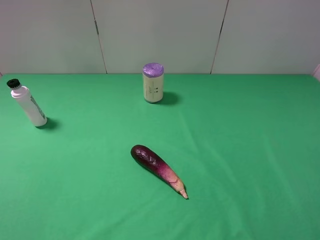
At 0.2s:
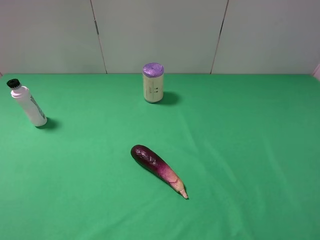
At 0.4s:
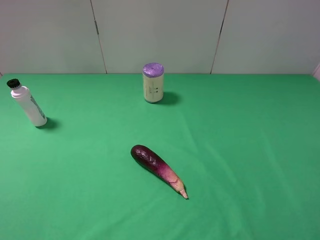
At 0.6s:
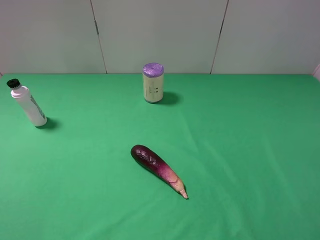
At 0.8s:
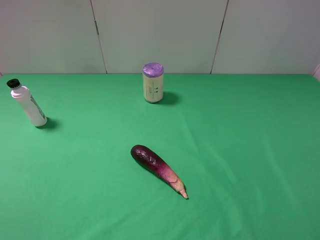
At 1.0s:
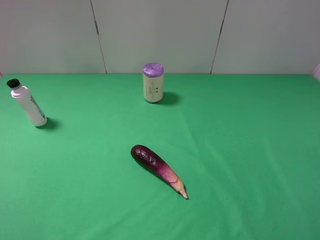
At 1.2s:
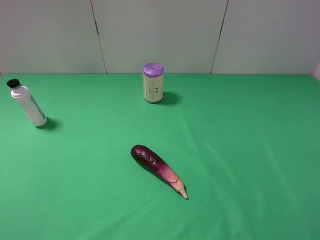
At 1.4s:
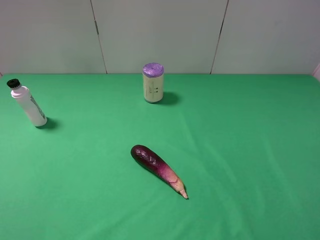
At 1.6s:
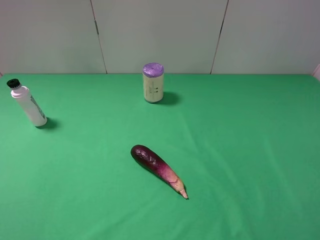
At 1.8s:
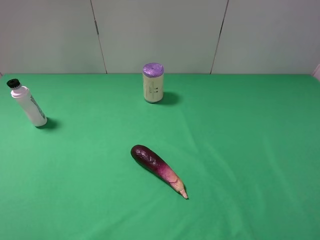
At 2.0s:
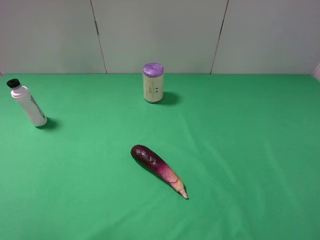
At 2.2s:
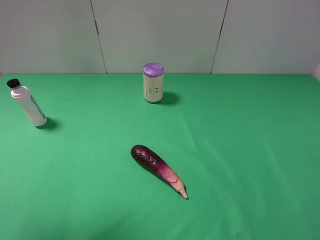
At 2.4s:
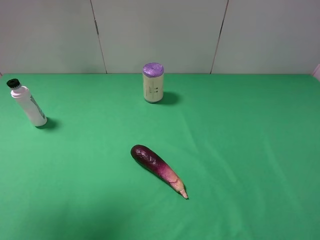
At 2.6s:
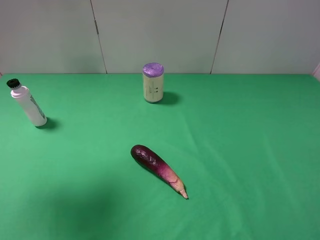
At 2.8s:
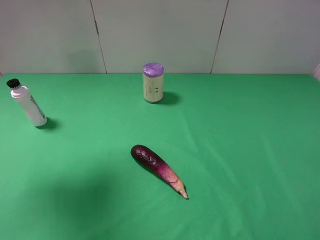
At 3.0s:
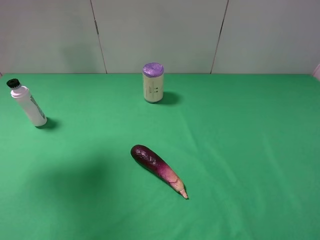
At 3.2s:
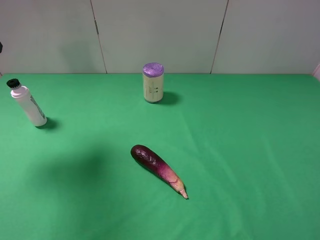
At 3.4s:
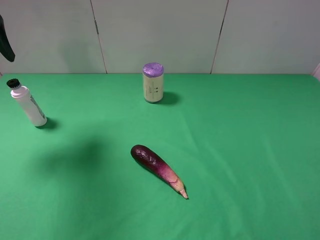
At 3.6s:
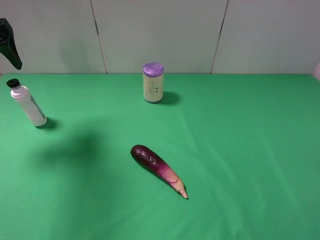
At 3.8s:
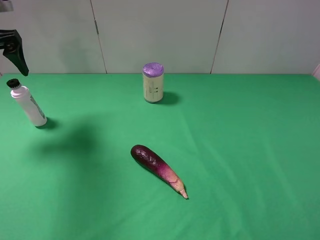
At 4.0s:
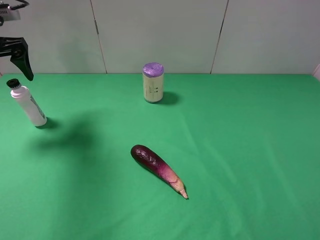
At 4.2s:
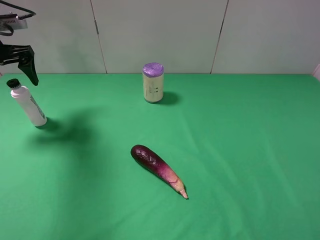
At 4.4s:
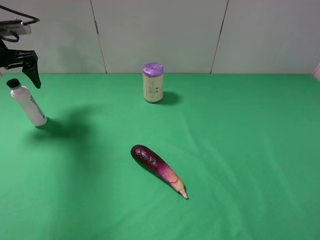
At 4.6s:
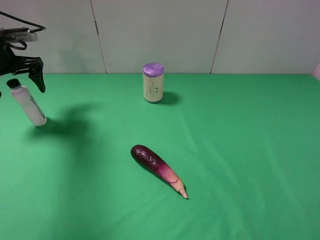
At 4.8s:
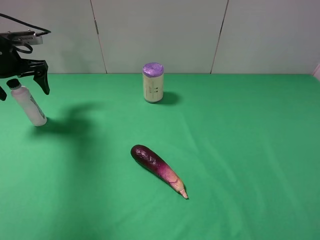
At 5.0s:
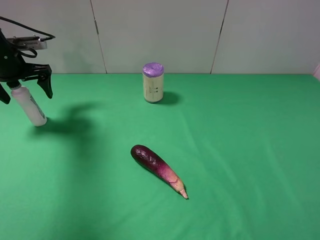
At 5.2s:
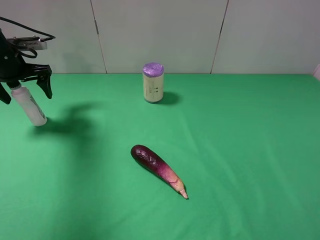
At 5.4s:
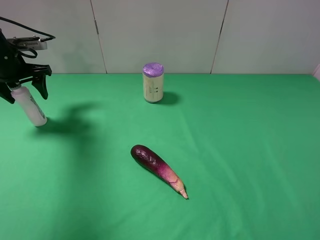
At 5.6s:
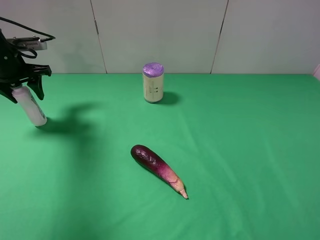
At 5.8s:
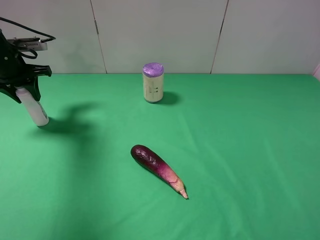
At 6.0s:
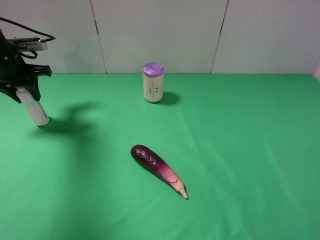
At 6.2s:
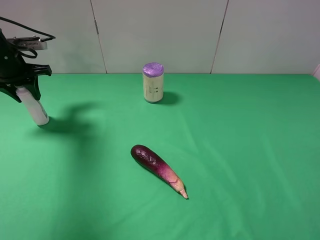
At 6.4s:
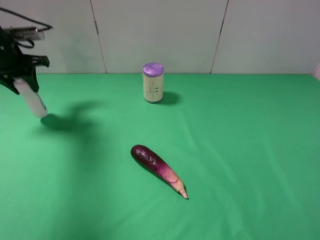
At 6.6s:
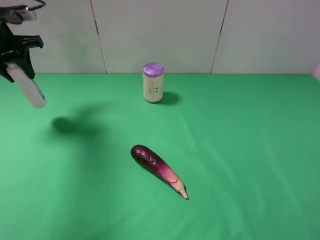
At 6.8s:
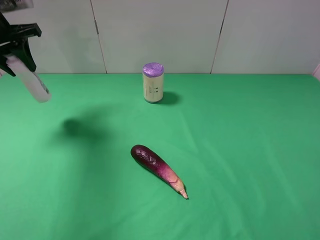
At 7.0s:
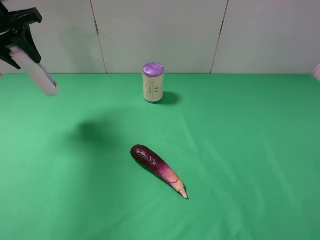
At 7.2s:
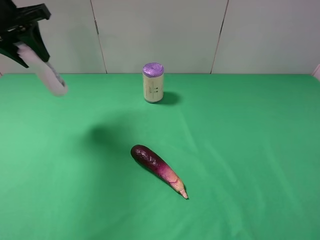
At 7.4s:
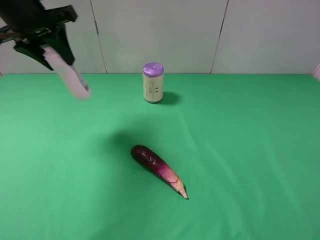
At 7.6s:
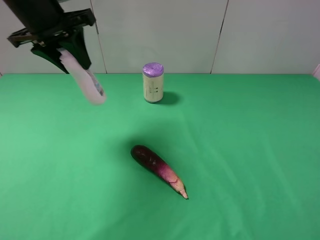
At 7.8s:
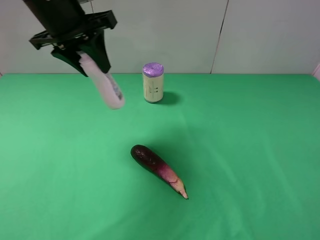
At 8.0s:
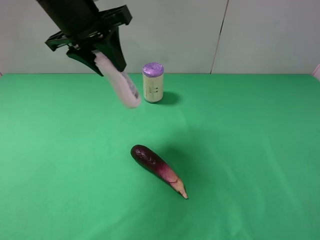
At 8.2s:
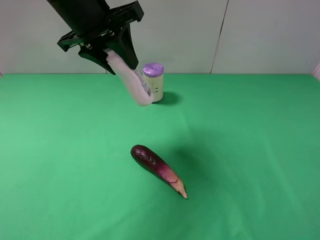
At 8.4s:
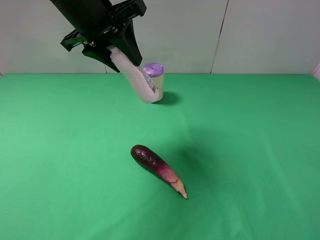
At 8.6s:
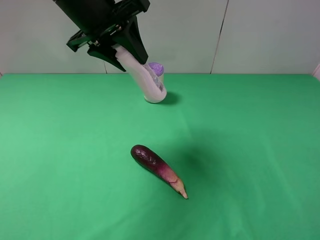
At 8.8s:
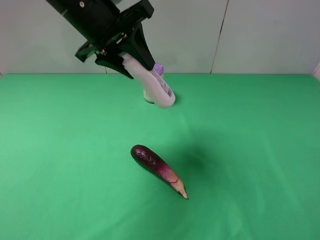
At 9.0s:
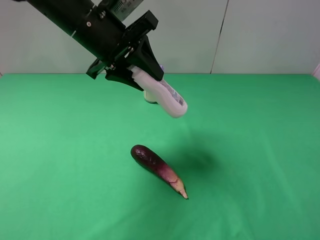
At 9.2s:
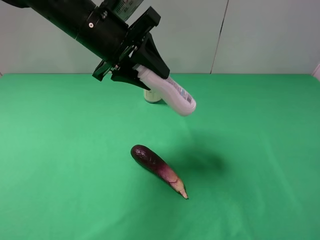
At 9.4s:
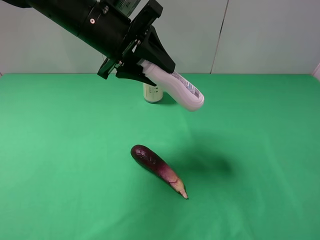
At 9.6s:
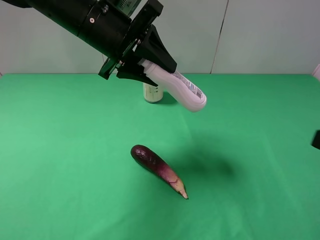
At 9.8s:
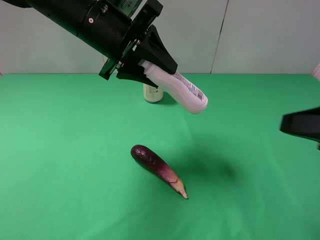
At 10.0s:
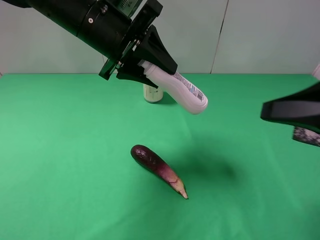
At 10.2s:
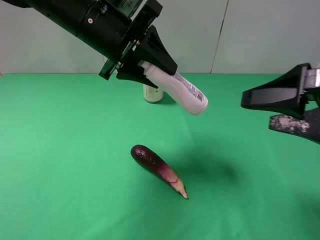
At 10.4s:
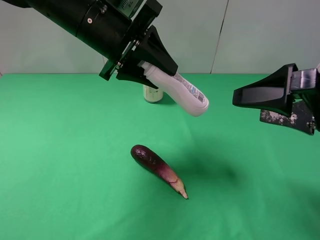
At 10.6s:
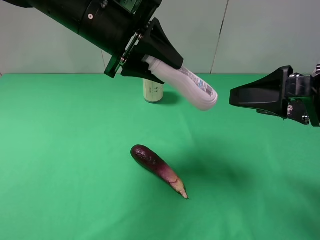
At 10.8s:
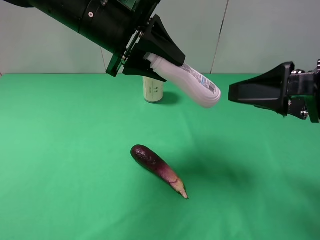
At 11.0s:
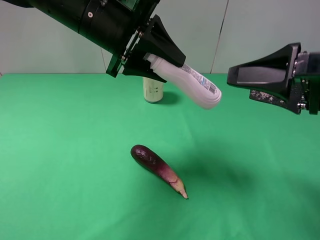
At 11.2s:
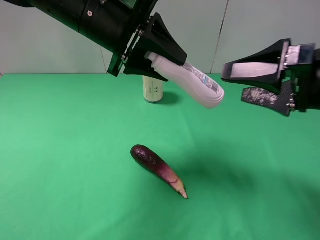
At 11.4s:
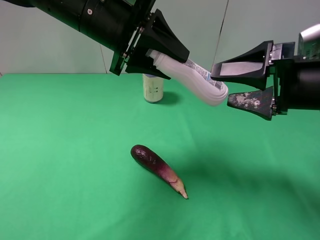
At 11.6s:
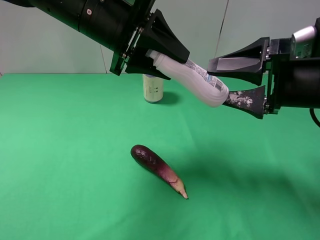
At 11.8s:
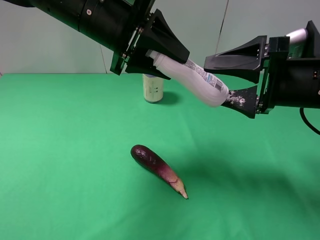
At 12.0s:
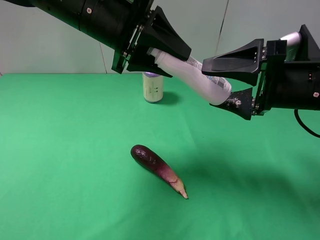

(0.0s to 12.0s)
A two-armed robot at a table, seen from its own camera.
Task of the whole recording: use the left gripper to pick up the item and transfer it from the left gripper to the right gripper.
1.6s - 3.0s: The left gripper heads forward, covering some 25 cm.
3.0s - 4.4s: The left gripper is displaced downward and forward by approximately 15 cm.
4.4s - 6.0s: The left gripper closes its fingers.
6.0s - 7.6s: The left gripper shifts approximately 20 cm to the right and upward.
7.6s - 9.0s: The left gripper goes roughly 10 cm to the right.
9.0s - 10.4s: The right gripper shifts approximately 15 cm forward and to the left.
10.4s - 12.0s: The right gripper is displaced forward by some 5 cm.

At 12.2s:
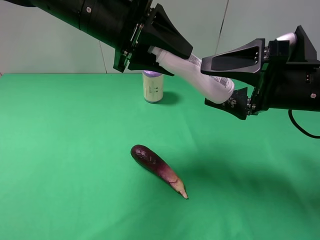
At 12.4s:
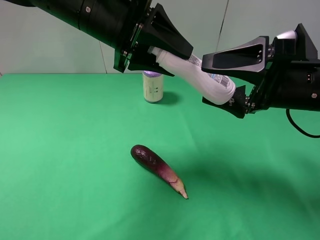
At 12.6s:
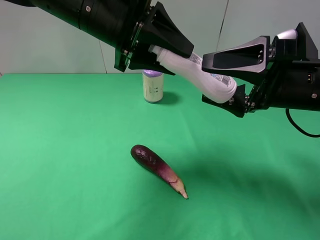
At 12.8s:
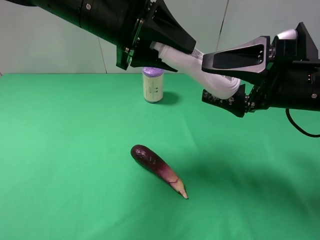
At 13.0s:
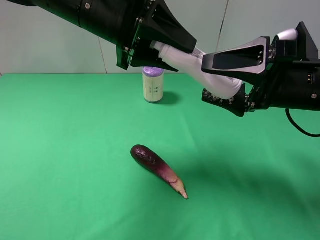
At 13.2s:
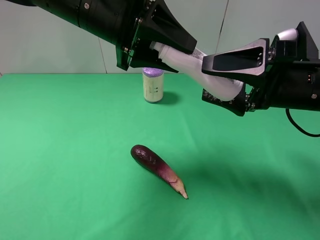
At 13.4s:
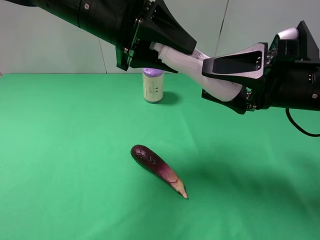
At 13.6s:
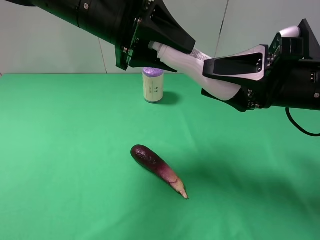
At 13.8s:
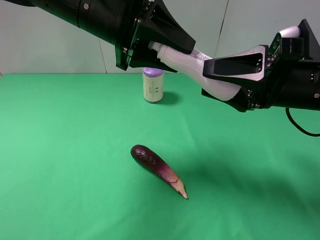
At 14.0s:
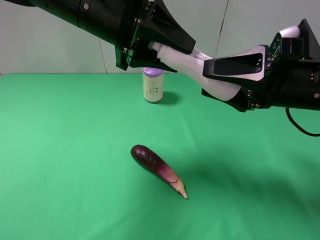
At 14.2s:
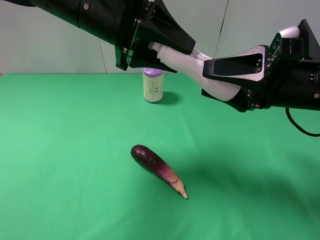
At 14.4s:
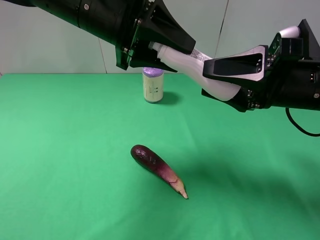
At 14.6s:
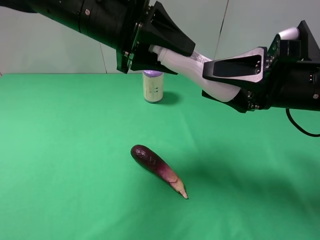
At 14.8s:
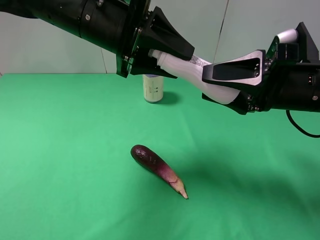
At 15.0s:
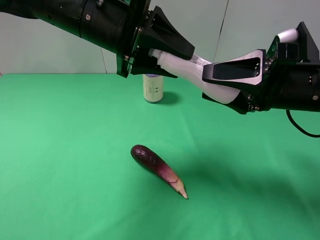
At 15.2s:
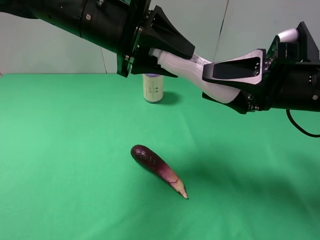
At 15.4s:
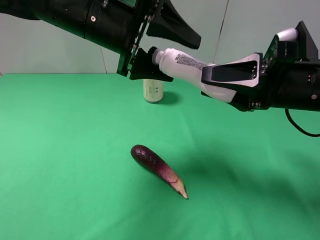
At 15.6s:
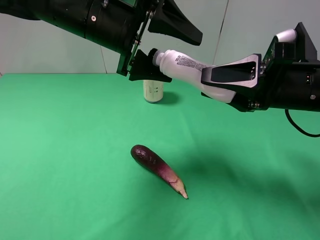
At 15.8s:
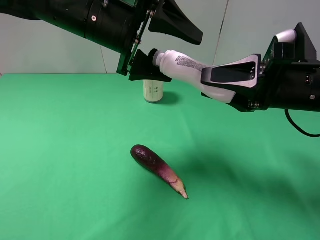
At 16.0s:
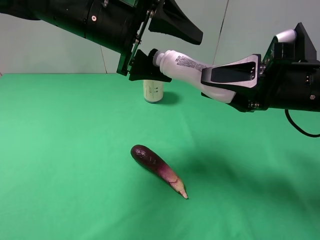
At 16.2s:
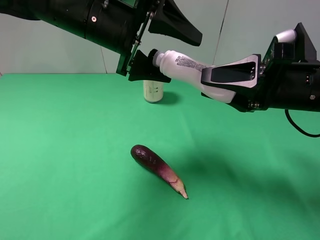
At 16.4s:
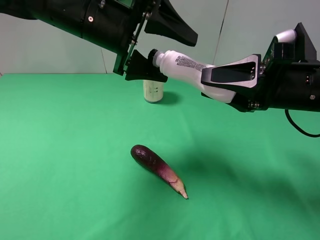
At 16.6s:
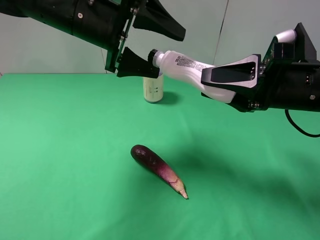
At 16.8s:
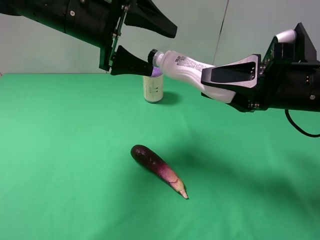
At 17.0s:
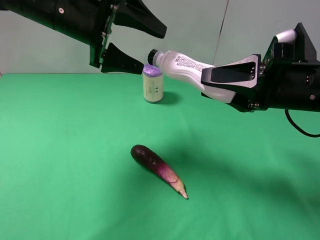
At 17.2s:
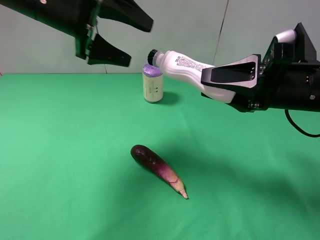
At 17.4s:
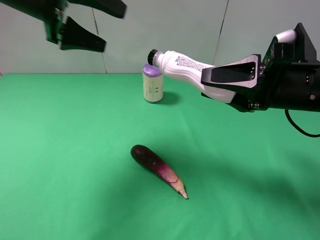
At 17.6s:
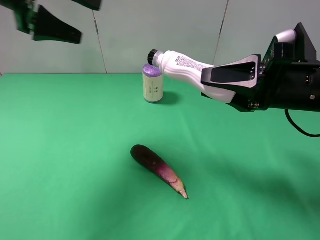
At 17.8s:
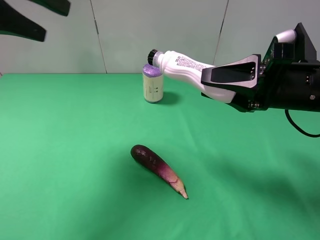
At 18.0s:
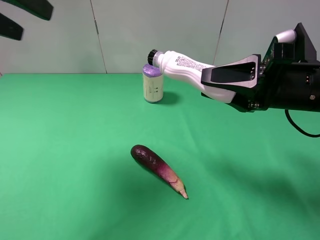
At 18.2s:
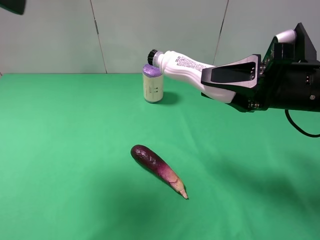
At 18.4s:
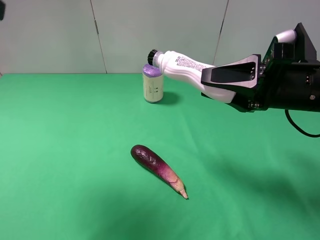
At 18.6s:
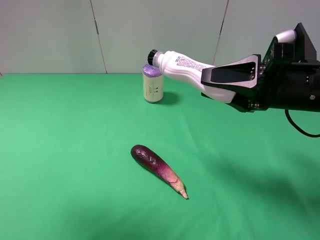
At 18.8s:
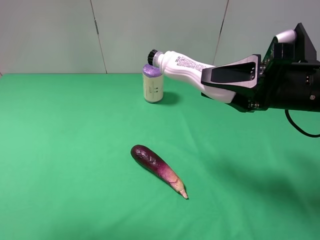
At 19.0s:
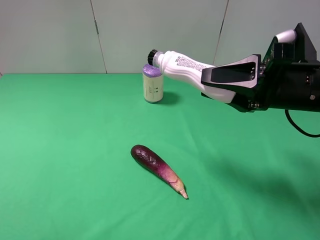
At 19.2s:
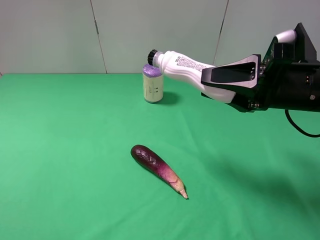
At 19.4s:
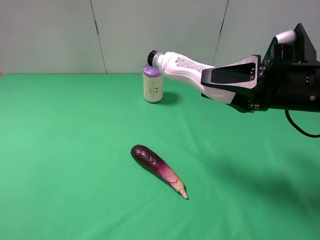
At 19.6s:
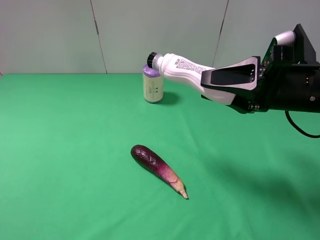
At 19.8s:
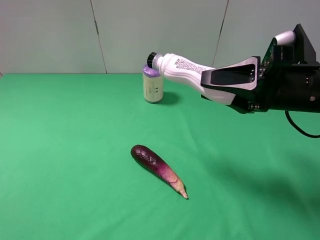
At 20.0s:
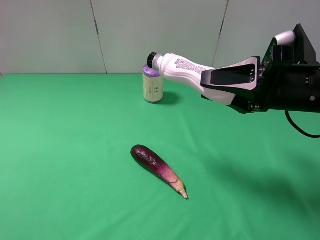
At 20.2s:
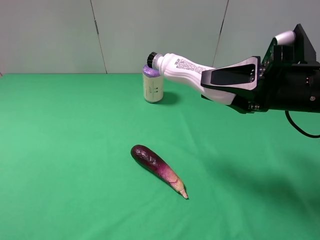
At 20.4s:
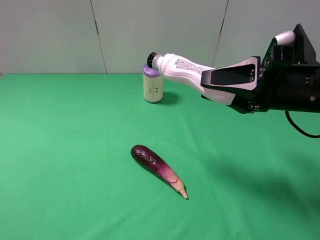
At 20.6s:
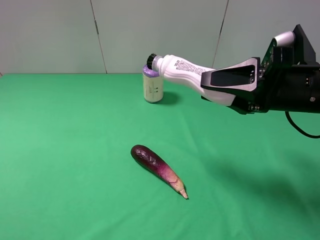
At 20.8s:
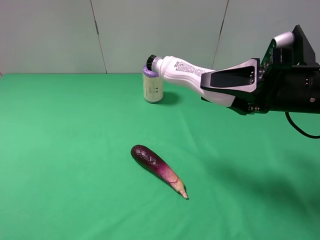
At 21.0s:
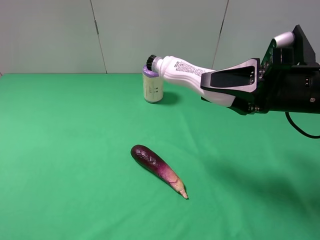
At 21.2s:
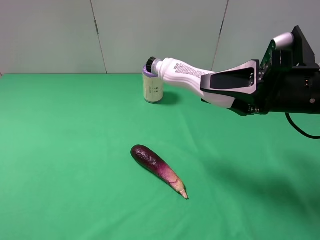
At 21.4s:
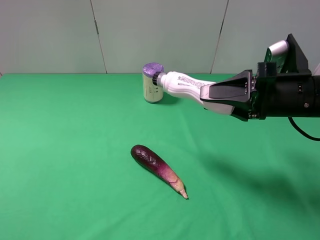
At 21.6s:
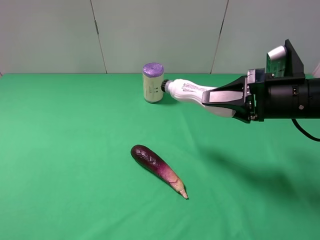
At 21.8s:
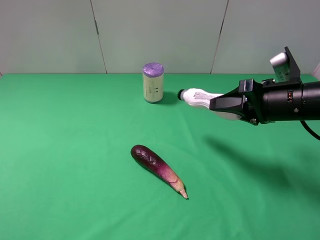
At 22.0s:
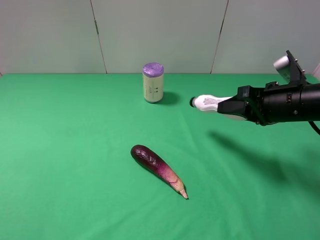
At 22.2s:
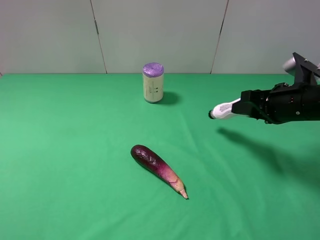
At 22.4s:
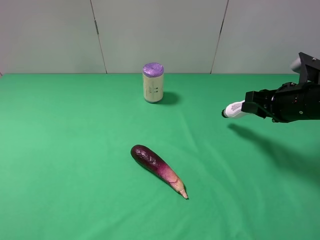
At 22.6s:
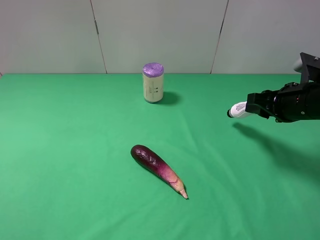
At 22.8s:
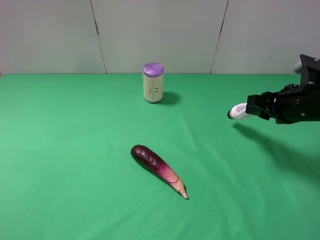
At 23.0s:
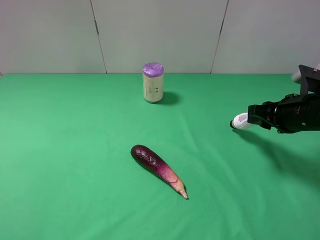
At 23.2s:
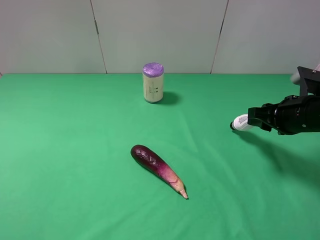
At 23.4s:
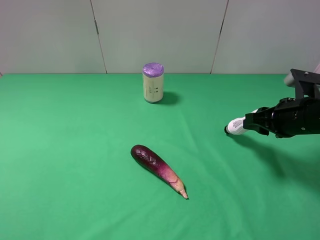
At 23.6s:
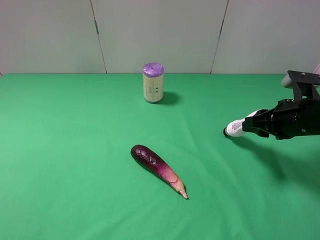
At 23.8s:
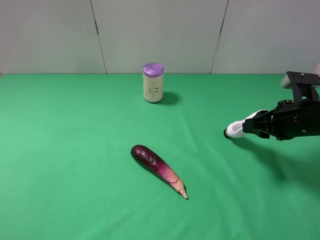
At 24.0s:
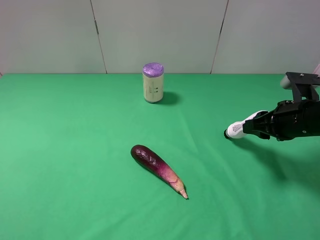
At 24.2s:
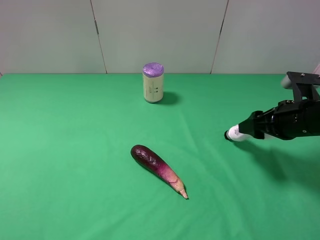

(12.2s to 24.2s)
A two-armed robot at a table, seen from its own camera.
Task of the whole recording: use the left gripper to pick up the item and transfer it from the left gripper to the right gripper.
12.2s - 13.8s: The right gripper closes its fingers.
13.8s - 15.2s: Neither gripper changes place.
15.2s - 16.6s: The left gripper opens up.
16.6s - 18.2s: The left gripper is displaced to the left, upward and backward by roughly 25 cm.
18.2s - 19.8s: The left gripper is displaced backward and downward by approximately 25 cm.
19.8s - 21.2s: Both grippers stay put.
21.2s - 22.6s: The right gripper goes some 5 cm to the right.
22.6s - 24.2s: The right gripper opens up.
